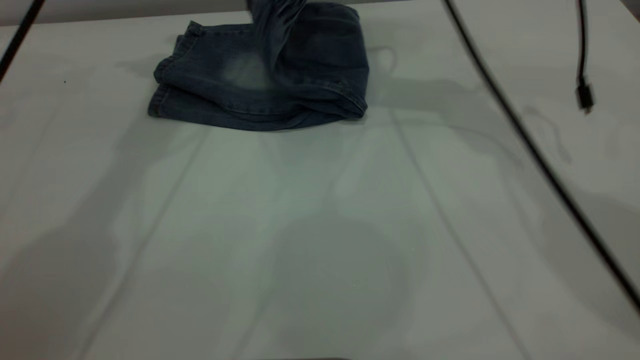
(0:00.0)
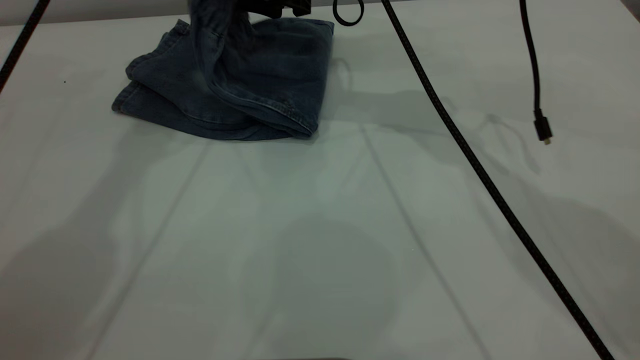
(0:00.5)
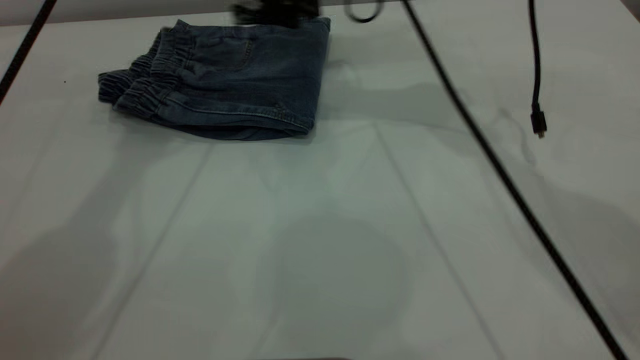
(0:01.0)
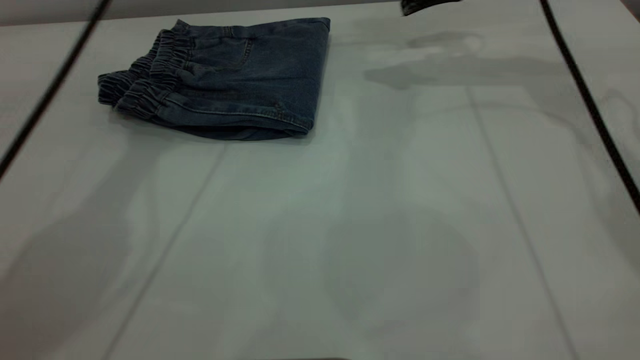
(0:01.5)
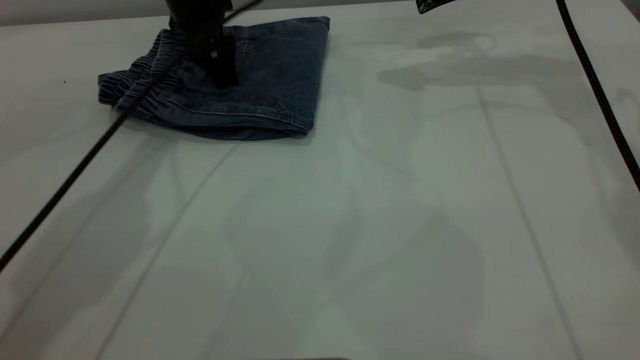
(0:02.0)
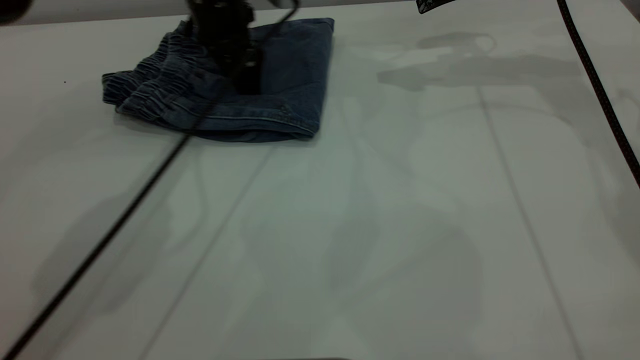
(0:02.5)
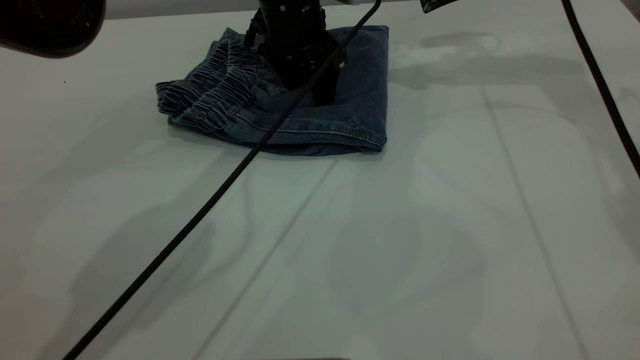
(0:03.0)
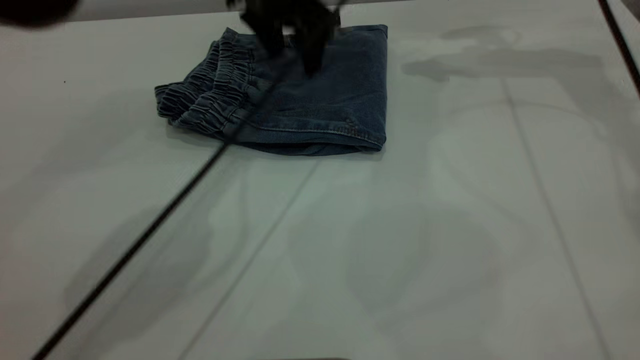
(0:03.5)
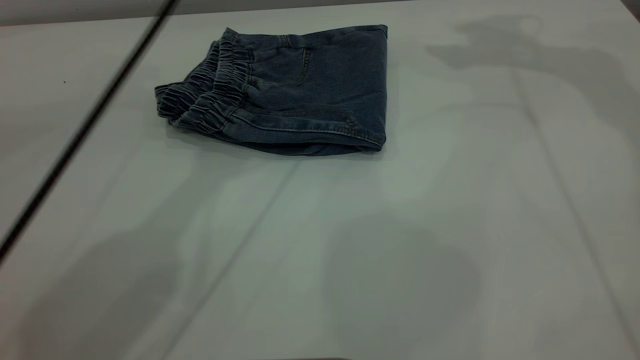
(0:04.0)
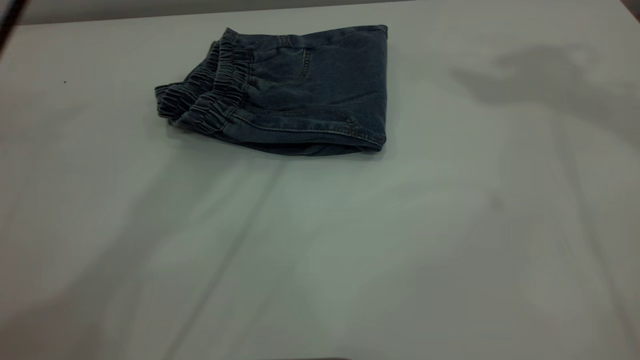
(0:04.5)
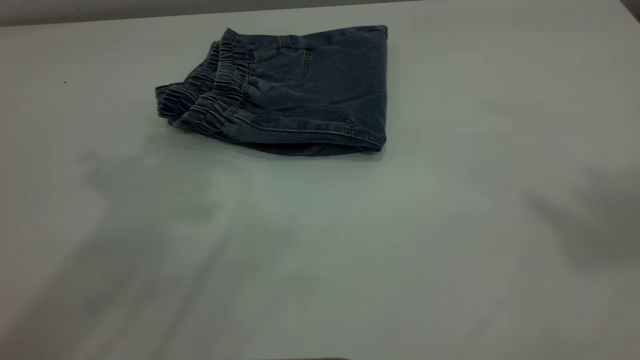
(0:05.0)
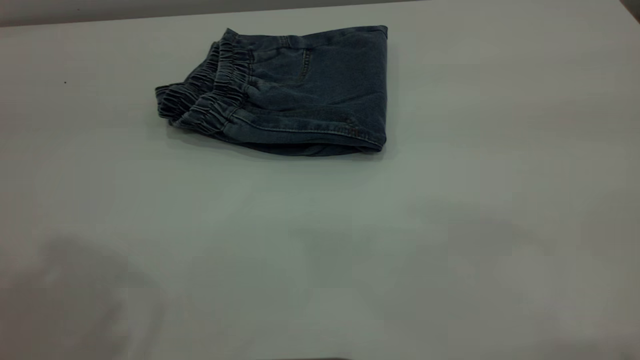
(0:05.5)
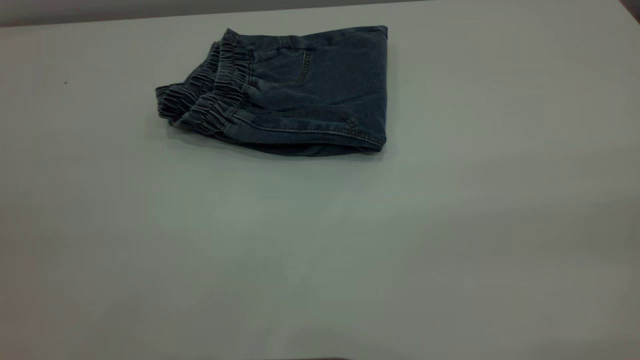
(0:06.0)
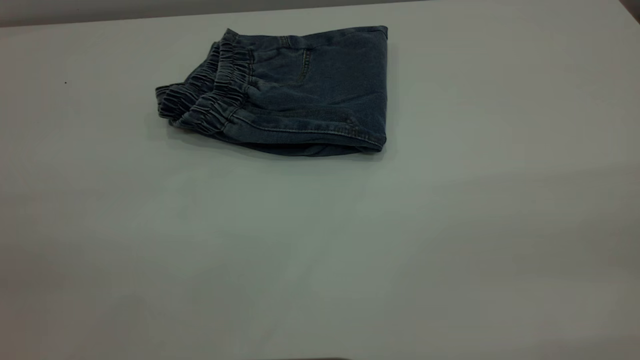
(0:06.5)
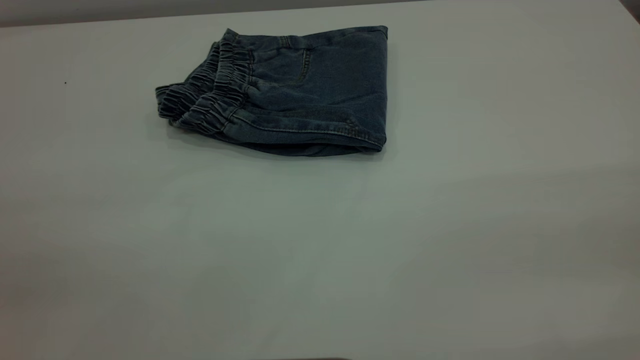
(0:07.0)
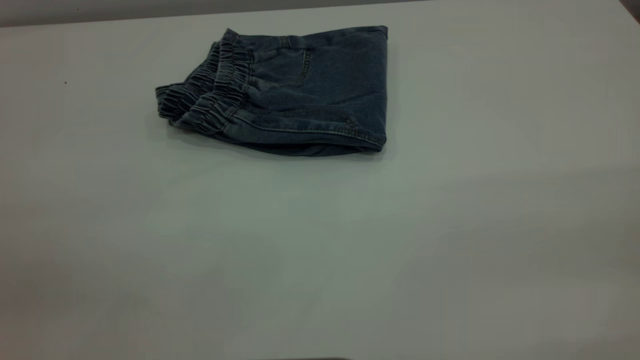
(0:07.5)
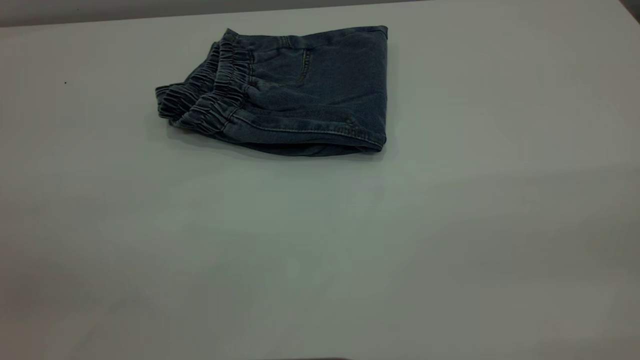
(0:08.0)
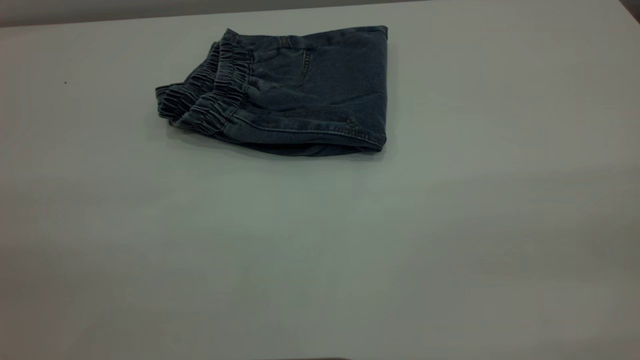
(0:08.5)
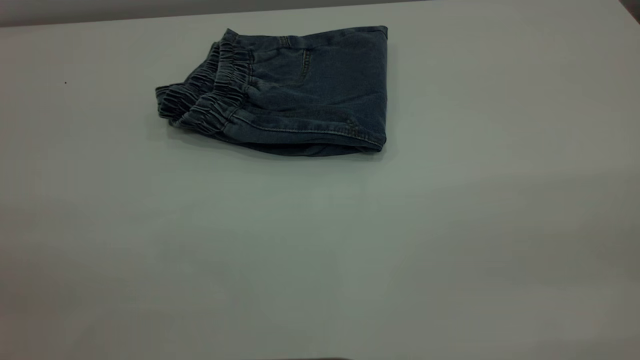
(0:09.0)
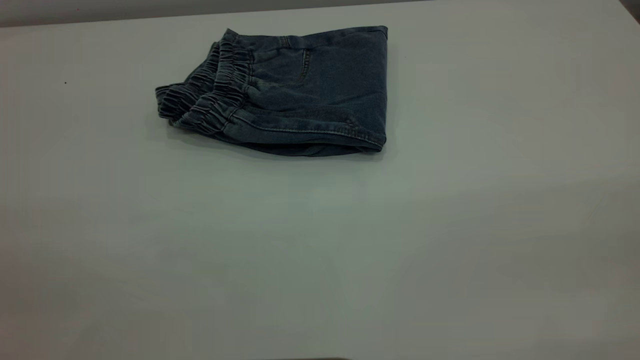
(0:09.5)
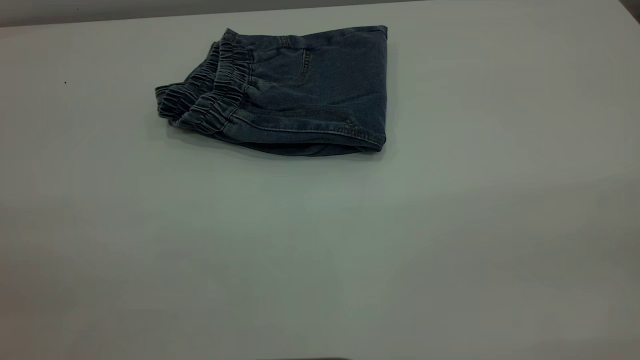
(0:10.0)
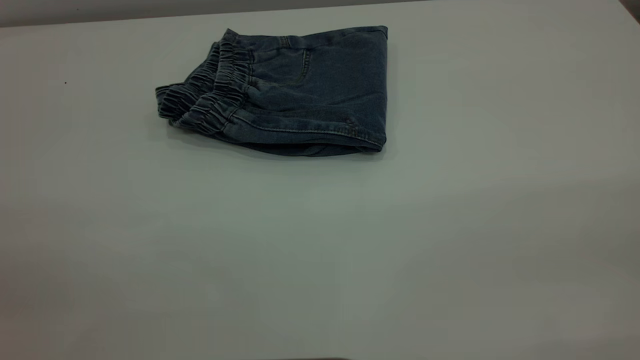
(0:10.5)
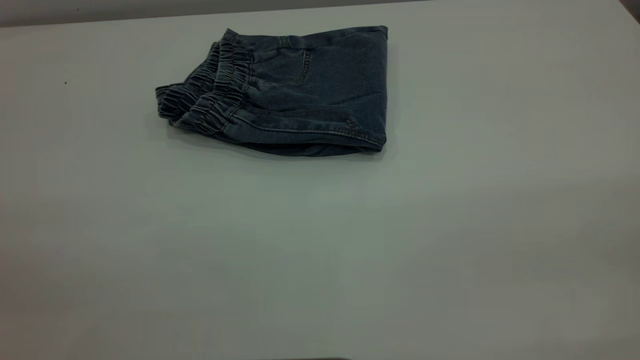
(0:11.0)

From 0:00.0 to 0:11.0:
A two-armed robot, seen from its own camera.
From 0:00.0 to 0:02.0: The right gripper is displaced to the right by some 15 cm, and opens its fingers; the left gripper goes roughly 20 cm downward.
From 0:02.0 to 0:03.5: The left gripper travels to the right by some 10 cm.
From 0:03.5 to 0:05.5: The right gripper goes about 50 cm backward and upward. Meanwhile the left gripper shifts some 50 cm backward, upward and to the left.
